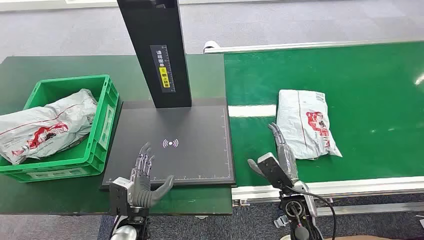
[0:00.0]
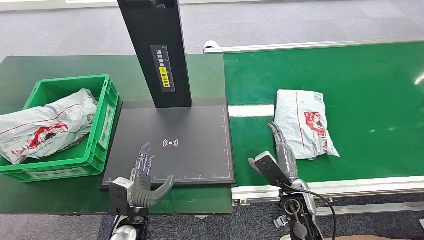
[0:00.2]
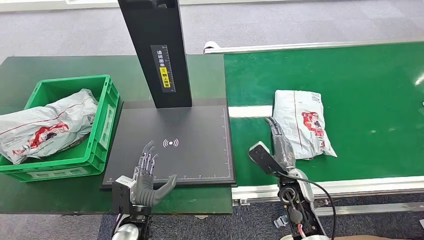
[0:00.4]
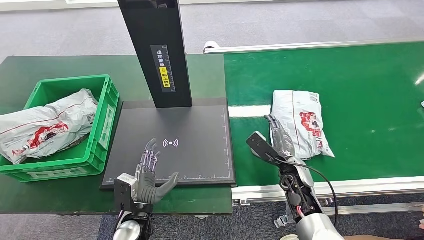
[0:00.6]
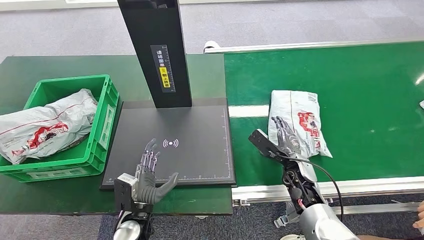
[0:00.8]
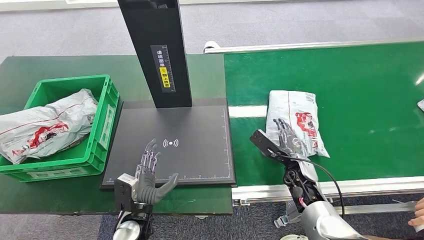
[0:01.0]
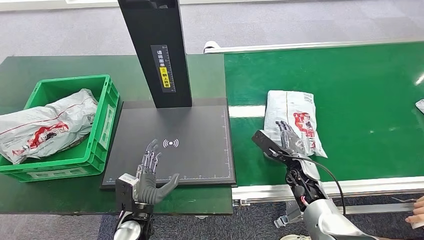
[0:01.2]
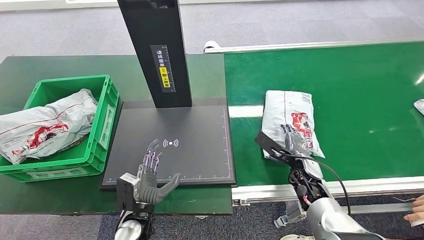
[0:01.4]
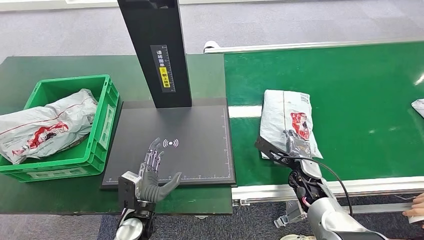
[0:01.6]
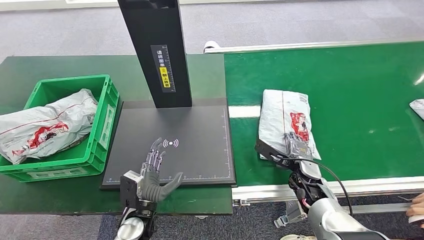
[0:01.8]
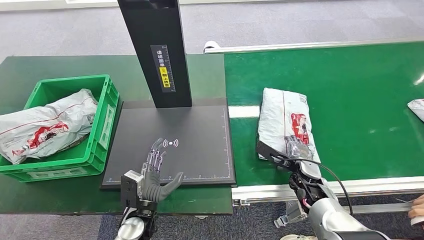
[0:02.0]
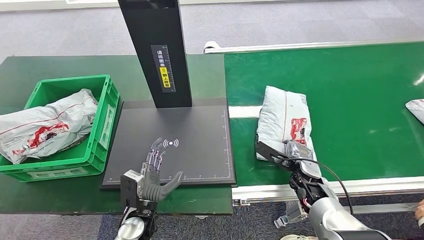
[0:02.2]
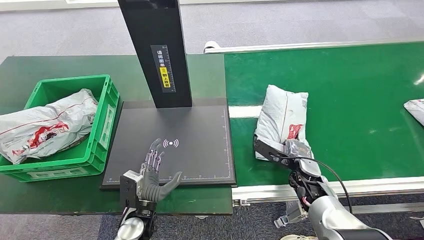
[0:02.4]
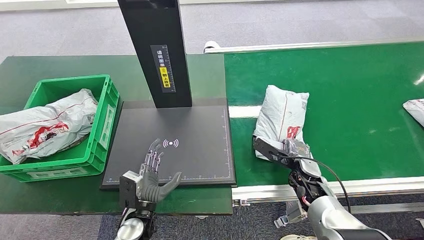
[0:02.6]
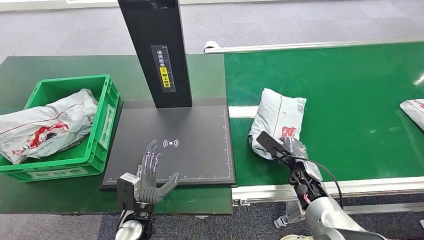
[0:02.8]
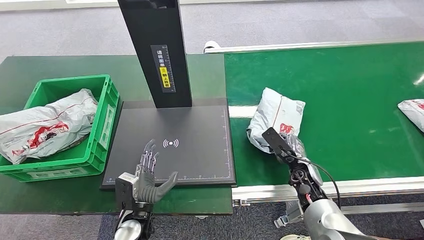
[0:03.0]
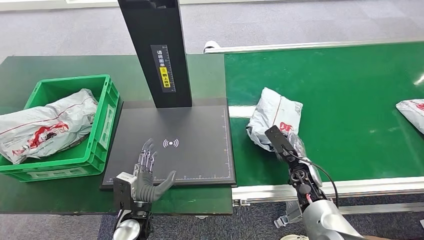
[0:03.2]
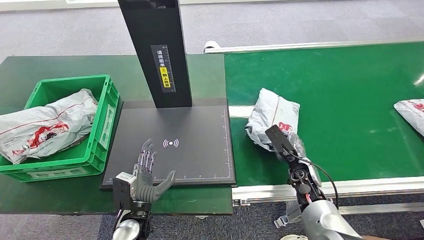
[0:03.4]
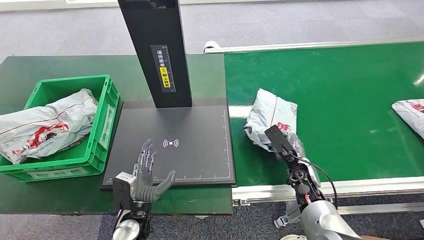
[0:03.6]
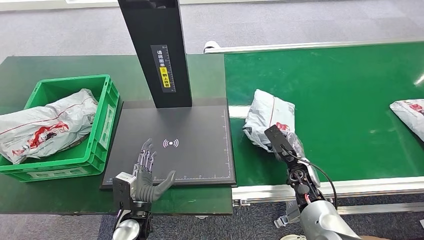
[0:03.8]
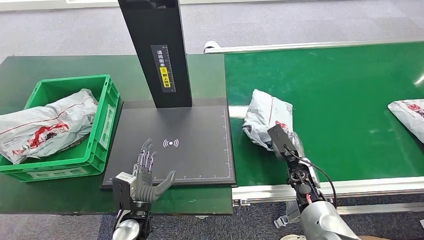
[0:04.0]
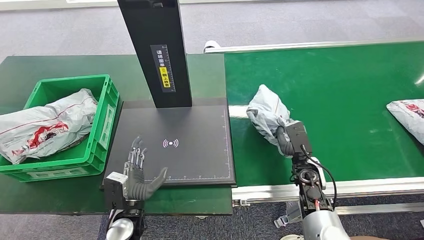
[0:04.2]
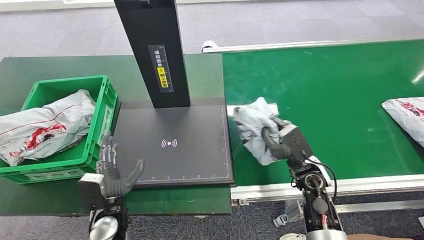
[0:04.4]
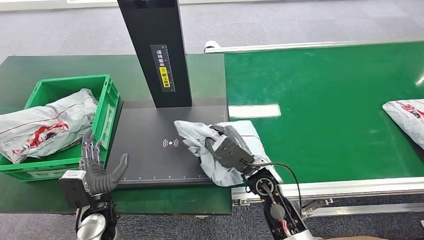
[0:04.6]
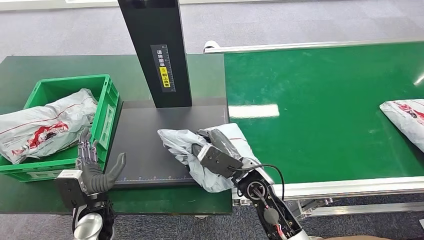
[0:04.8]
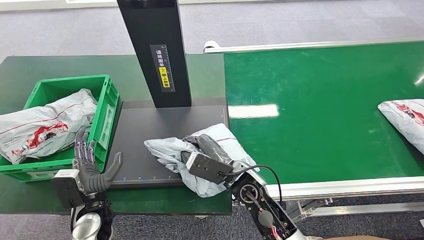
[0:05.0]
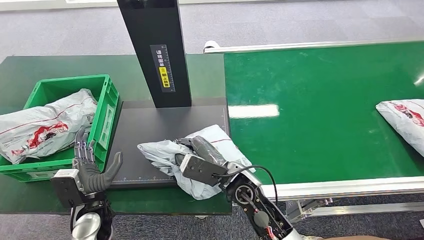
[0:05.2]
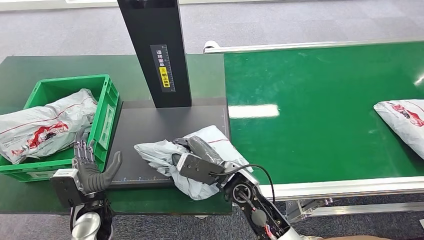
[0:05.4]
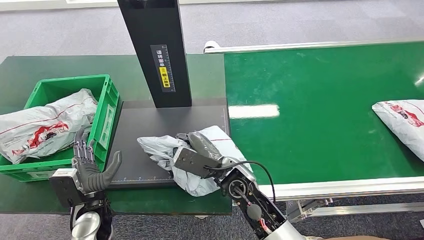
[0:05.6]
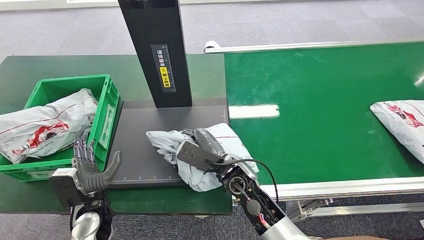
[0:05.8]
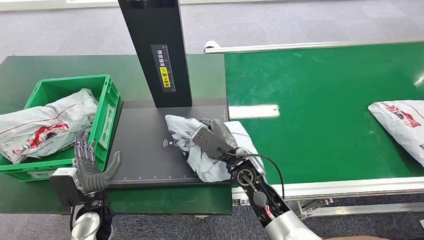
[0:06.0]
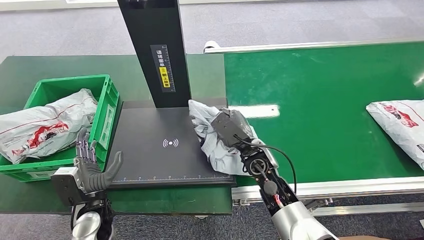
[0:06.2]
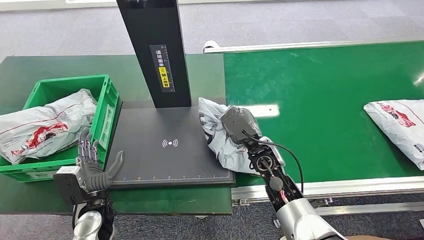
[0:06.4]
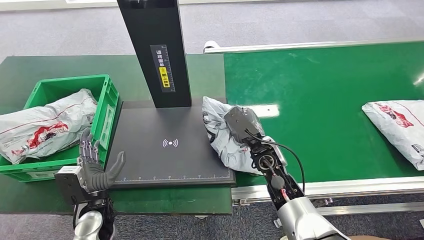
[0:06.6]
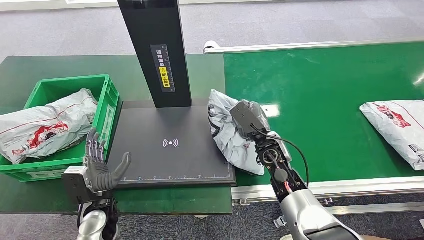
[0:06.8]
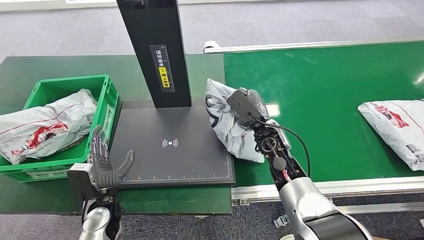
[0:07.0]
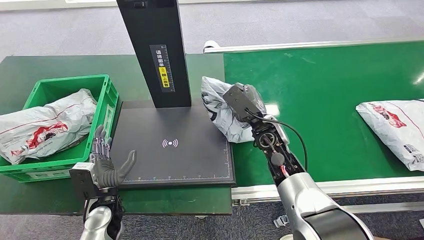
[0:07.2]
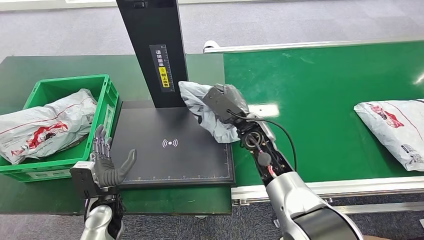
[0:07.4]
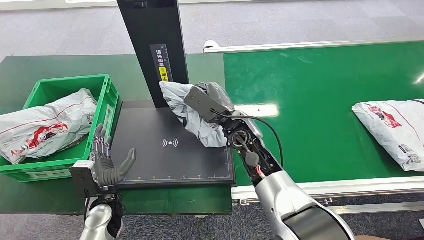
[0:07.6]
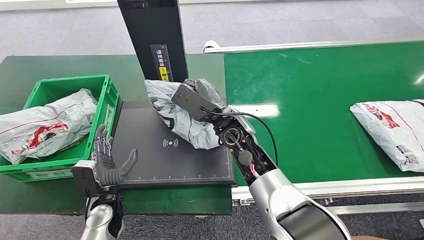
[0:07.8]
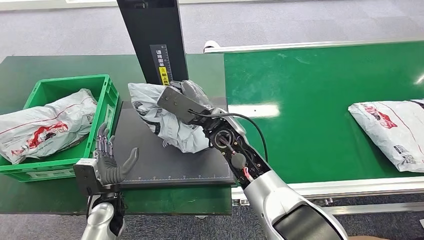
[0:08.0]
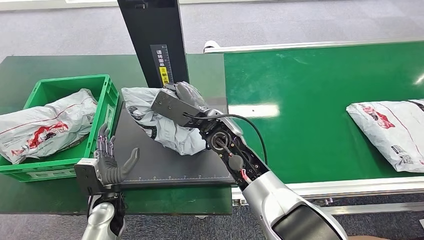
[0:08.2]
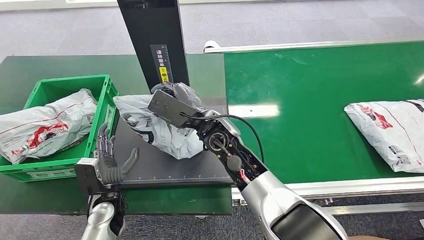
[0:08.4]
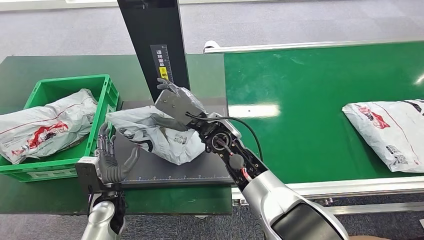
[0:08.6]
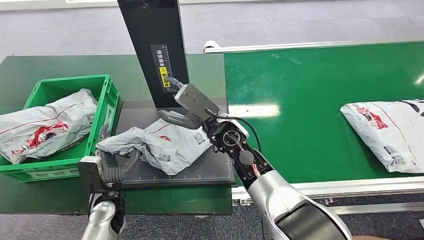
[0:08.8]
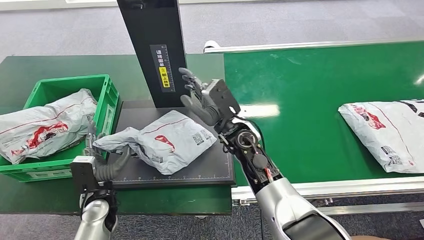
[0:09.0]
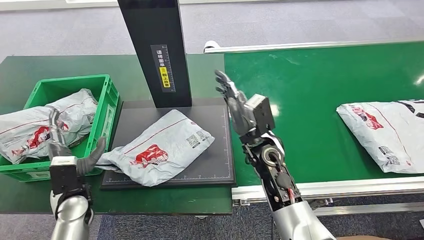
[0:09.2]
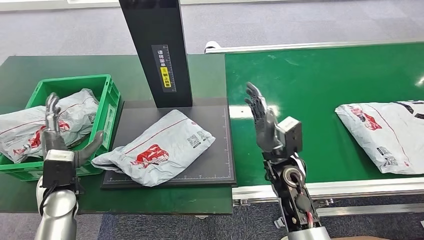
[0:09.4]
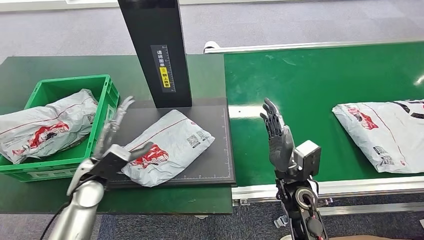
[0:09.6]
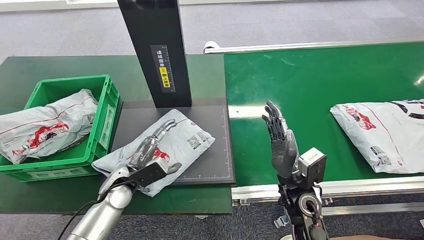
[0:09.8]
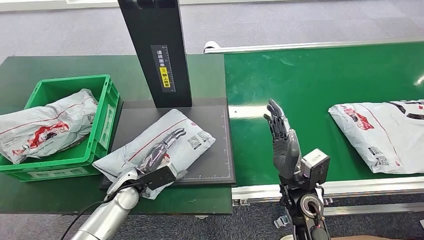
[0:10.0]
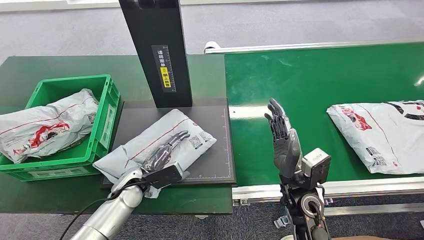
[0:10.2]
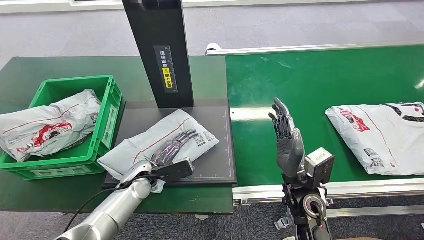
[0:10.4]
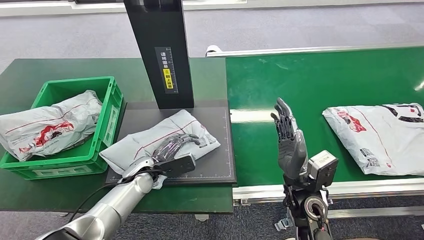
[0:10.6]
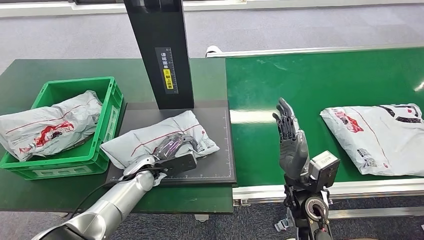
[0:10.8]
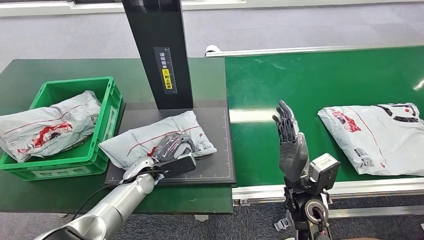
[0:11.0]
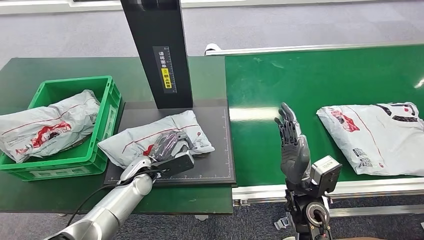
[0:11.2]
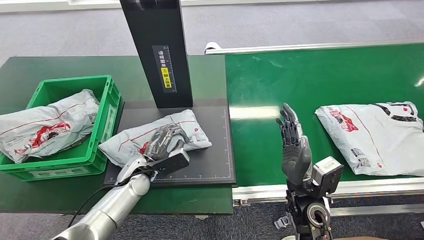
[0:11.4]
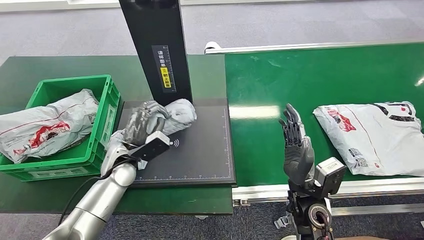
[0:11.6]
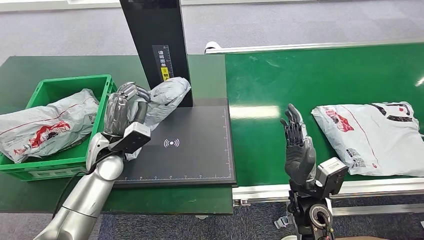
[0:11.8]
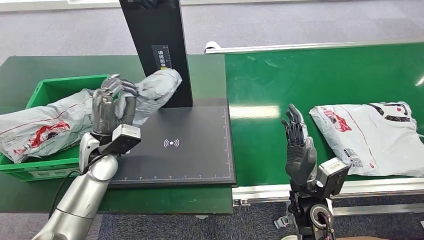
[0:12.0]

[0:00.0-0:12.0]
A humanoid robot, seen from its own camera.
Step, 0:00.0 to 0:04.4: Pick up the package from the conveyor belt.
Step, 0:04.6 to 0:09.2: Place the package onto the inbound machine.
0:06.0 to 0:07.6: The right hand is displaced upward and forward by about 10 cm, and goes to the right and returns, approximately 10 cm each way.

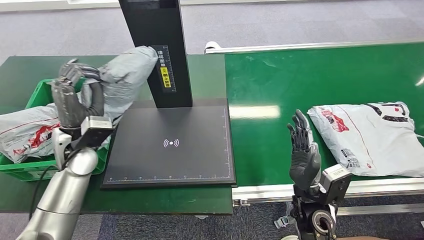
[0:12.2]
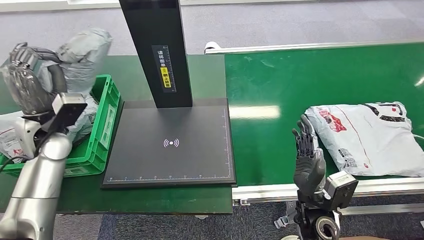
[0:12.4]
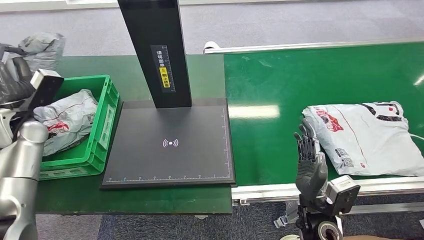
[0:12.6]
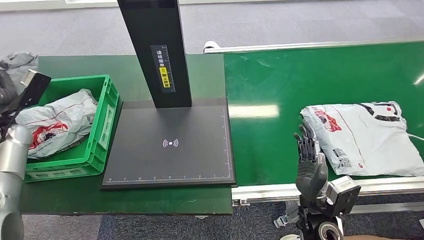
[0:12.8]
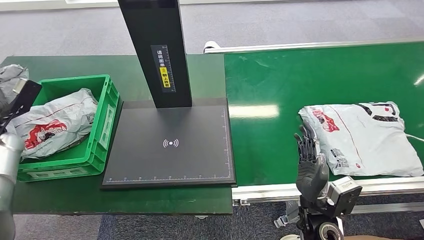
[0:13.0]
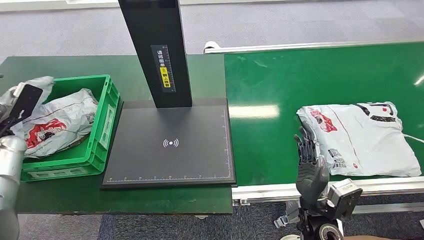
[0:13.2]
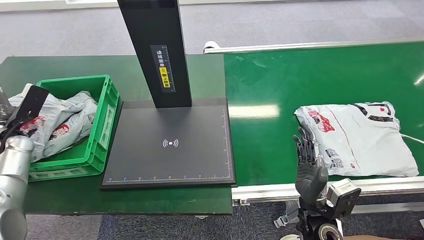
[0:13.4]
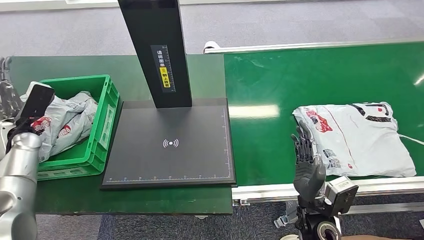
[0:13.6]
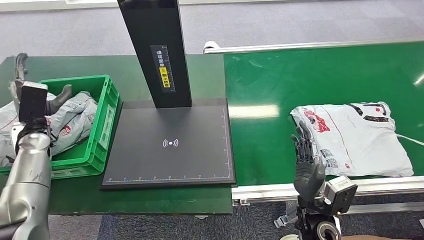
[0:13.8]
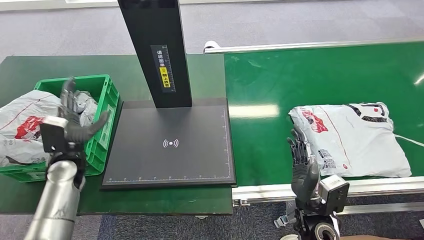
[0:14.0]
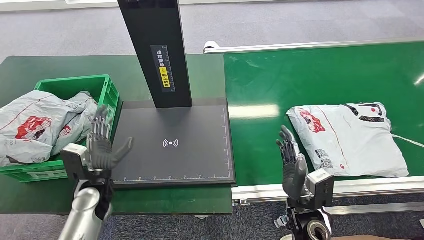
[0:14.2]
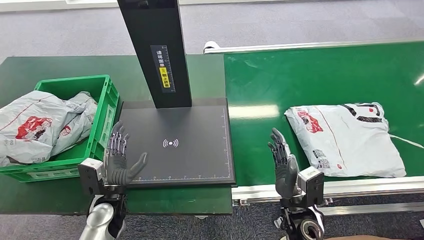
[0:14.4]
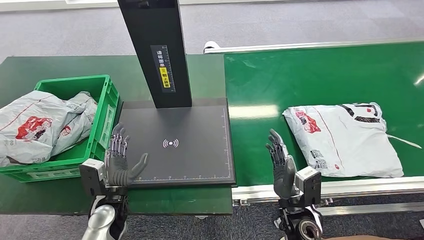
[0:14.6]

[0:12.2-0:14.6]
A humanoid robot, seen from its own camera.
Step, 0:12.4 to 0:14.6: Place the package into the parcel locker.
0:13.4 to 0:14.6: The left hand goes roughly 30 cm to the right and backward.
